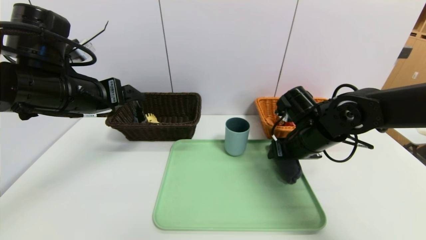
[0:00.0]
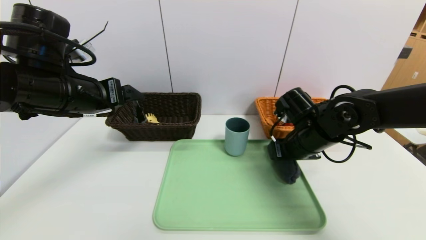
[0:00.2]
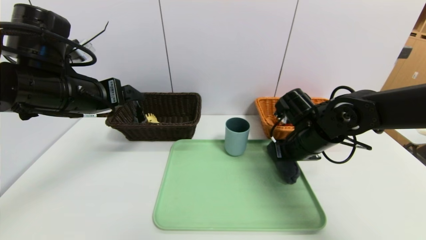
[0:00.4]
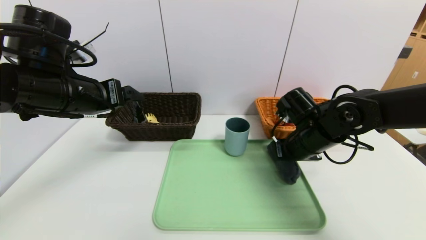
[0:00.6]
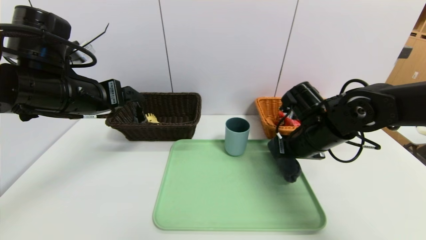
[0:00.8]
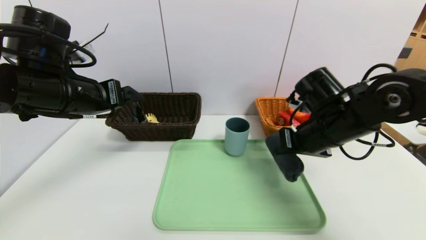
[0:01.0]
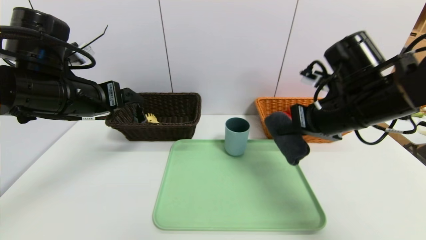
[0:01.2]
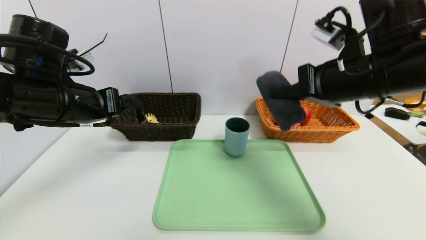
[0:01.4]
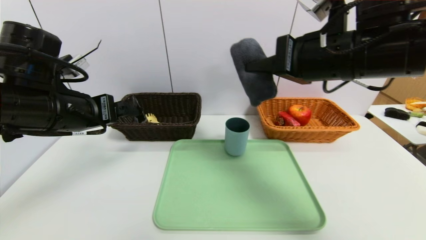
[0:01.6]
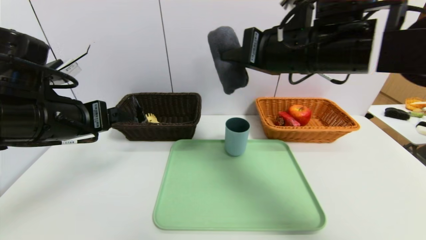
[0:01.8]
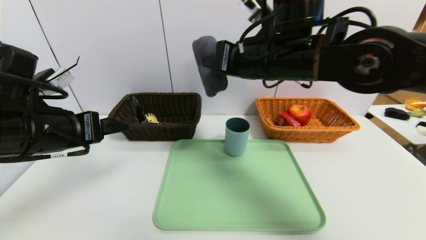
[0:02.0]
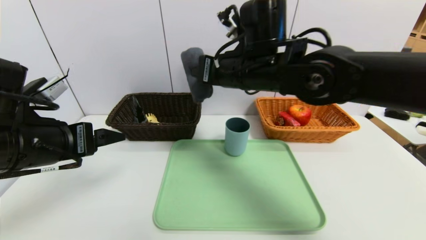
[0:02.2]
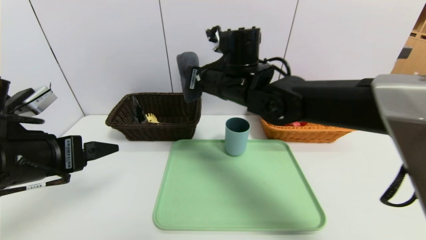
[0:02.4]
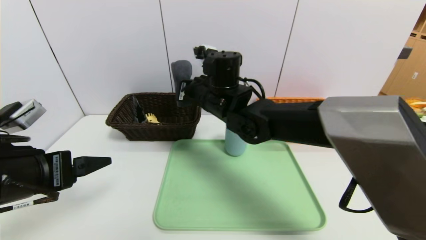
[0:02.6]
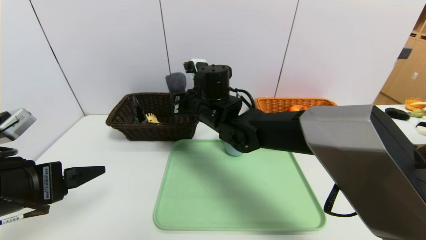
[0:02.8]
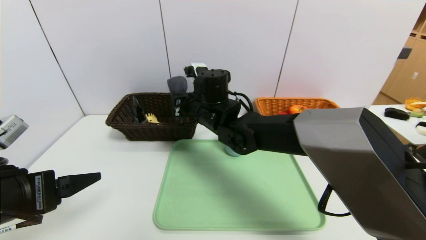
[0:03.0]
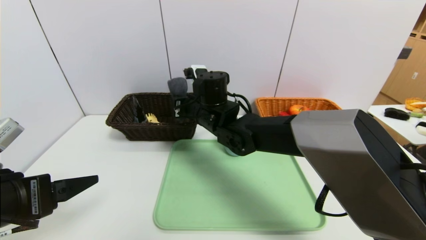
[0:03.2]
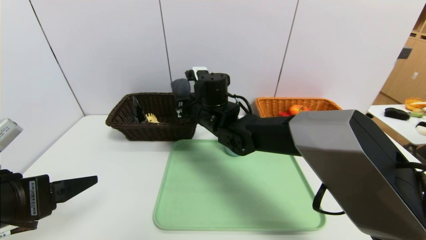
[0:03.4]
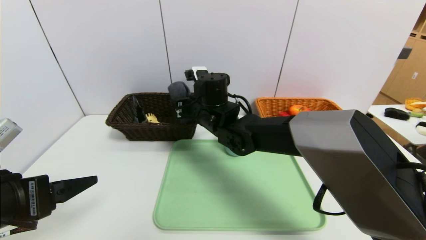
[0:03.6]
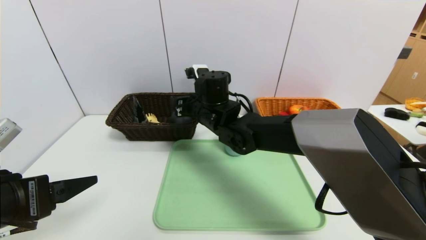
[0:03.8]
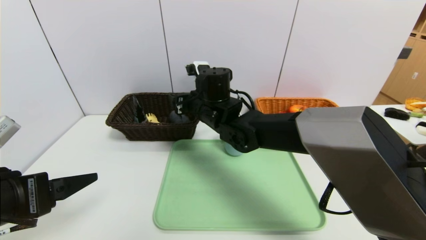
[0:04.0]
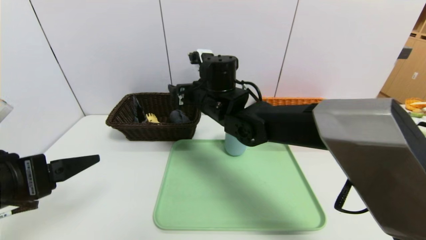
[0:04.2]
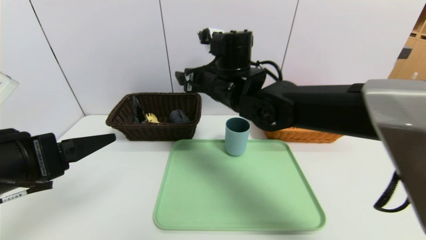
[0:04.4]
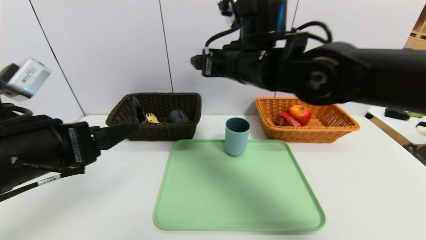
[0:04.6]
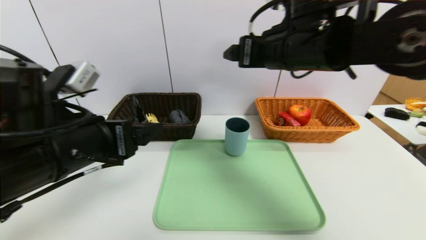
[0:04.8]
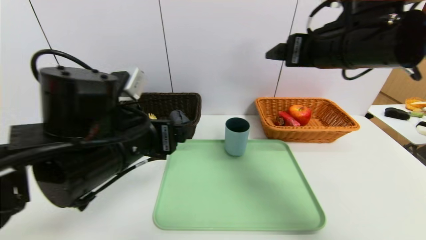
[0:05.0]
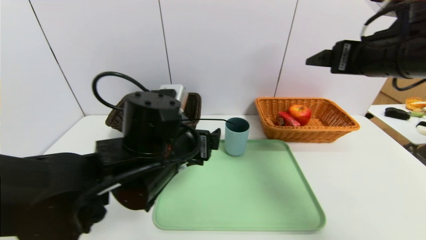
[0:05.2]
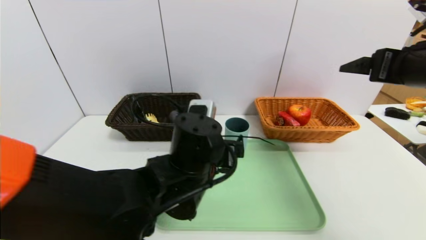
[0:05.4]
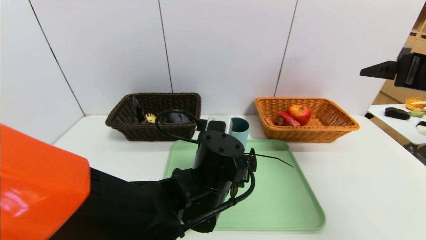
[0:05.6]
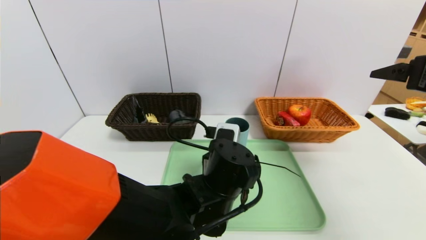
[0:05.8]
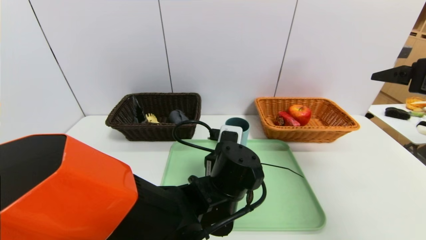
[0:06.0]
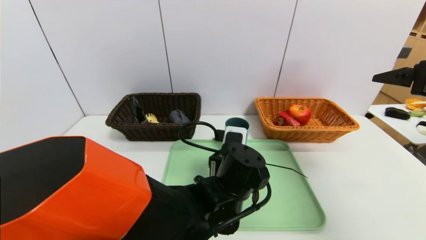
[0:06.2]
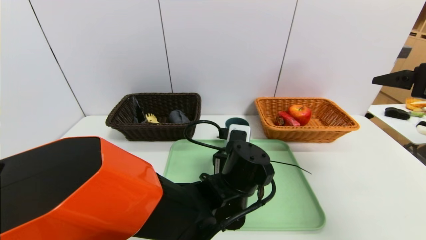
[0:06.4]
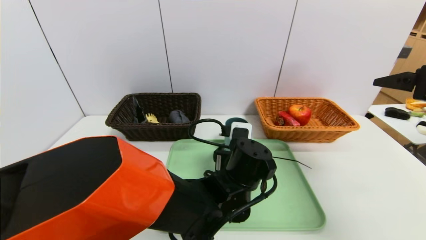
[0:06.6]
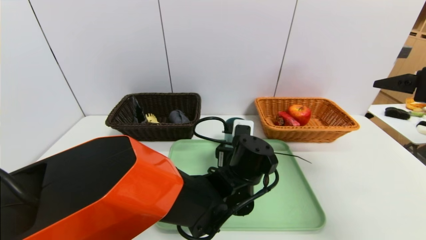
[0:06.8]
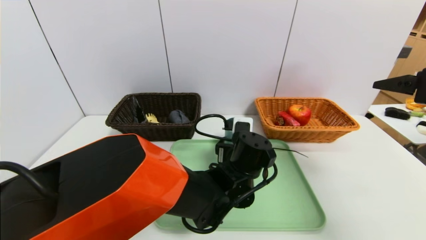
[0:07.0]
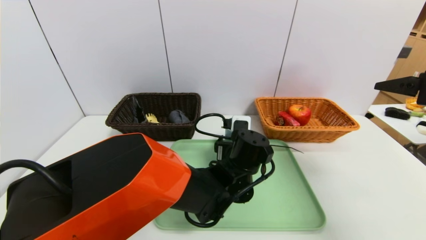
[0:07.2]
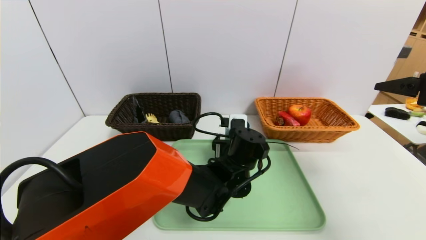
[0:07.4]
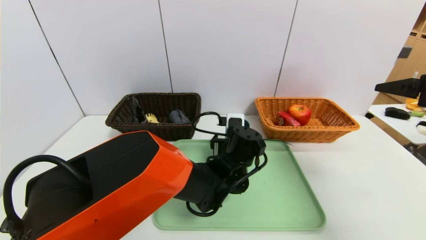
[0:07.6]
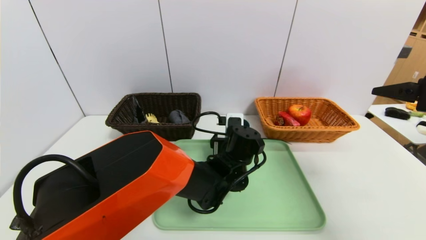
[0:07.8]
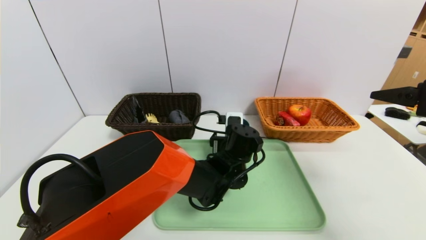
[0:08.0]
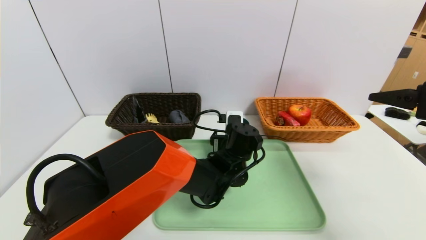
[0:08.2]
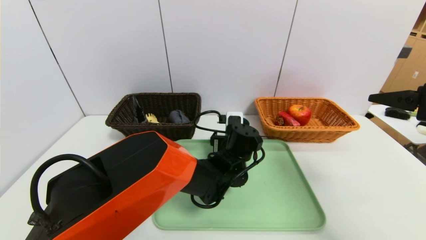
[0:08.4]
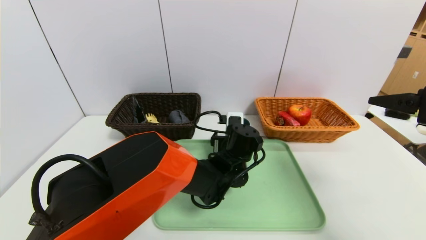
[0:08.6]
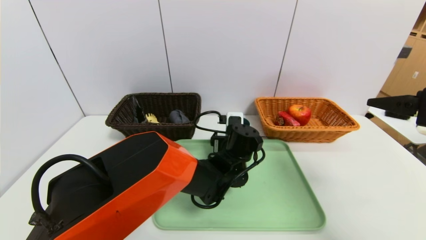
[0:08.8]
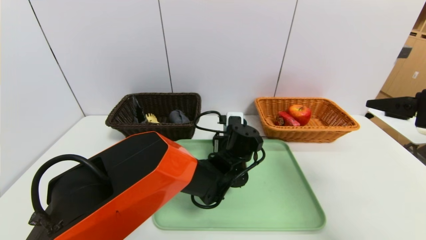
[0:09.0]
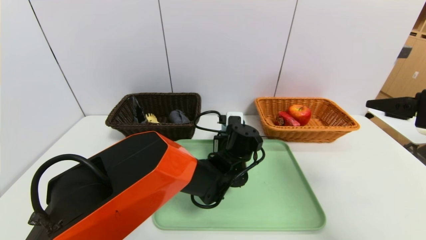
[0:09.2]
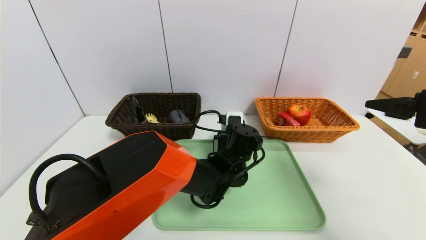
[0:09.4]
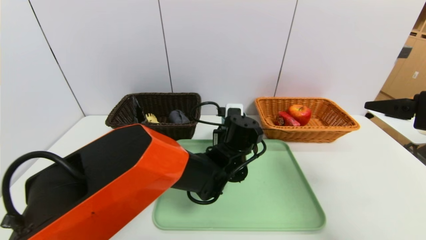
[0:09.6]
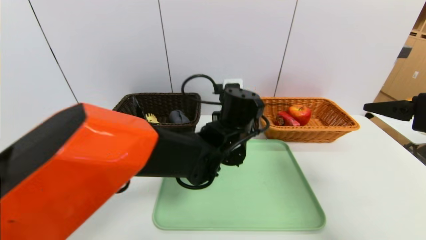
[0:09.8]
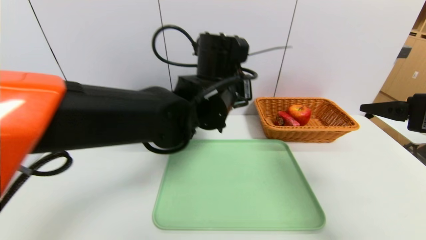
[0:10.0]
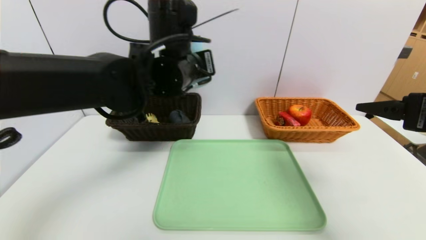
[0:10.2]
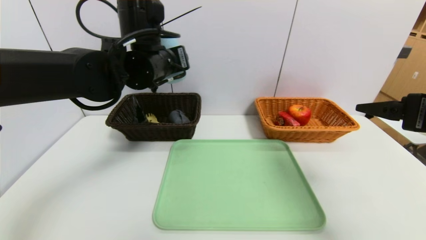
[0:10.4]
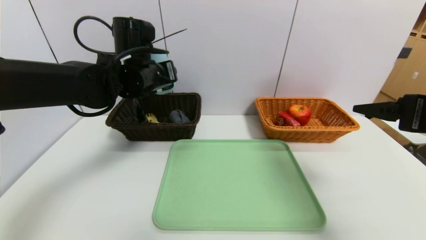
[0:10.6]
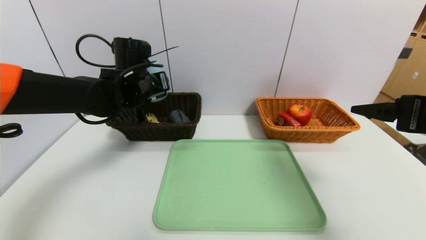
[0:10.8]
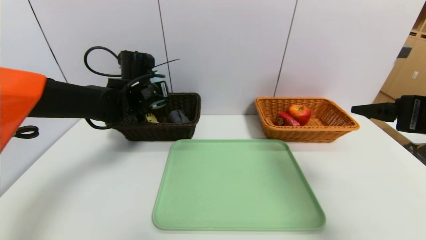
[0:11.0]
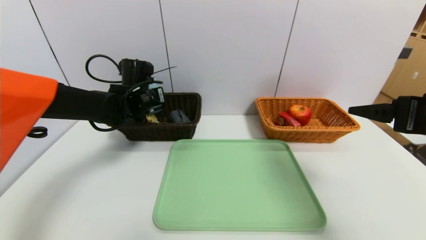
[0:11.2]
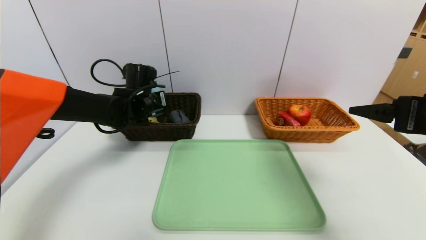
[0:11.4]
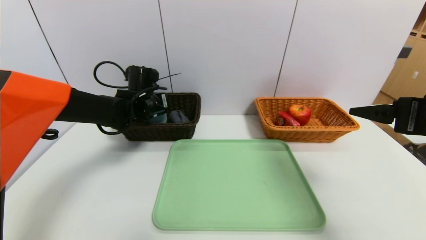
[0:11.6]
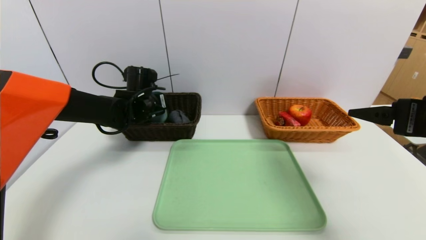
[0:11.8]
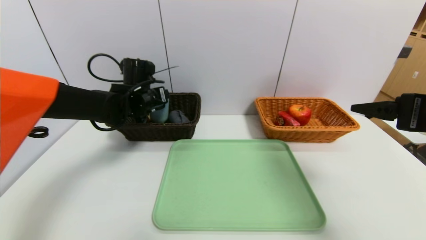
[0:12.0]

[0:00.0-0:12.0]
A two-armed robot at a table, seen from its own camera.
Task of the whole recording: place the food in the right basket with the right gripper, and place the non food items in the left basket with the left gripper.
Step, 0:00.0 to 0:04.2: Grasp the grey towel and put it in the left basket.
0:00.0 to 0:01.6: The right gripper heads upward, covering some 15 cm, and closes up.
0:01.6 to 0:03.0: The left gripper is displaced backward and downward by approximately 15 cm. The right gripper shifts roughly 25 cm to the left, downward and forward.
0:03.0 to 0:04.4: The right gripper is displaced upward by approximately 5 cm, and opens up.
0:04.4 to 0:06.0: The right gripper shifts approximately 35 cm to the right and backward. The left gripper heads to the right and downward, covering some 30 cm.
0:06.0 to 0:07.6: The left gripper heads forward, covering approximately 10 cm.
0:07.6 to 0:09.0: There are only small adjustments of the grippers.
0:09.0 to 0:10.4: The left gripper moves upward and to the left, about 25 cm.
0:10.4 to 0:12.0: The left gripper moves downward, forward and to the left, some 15 cm.

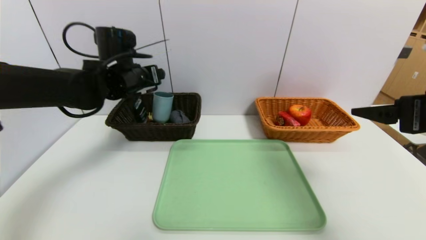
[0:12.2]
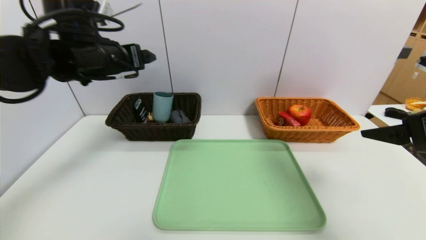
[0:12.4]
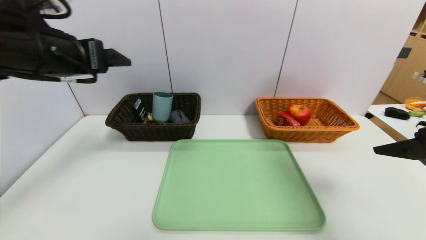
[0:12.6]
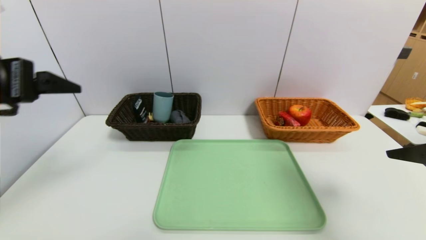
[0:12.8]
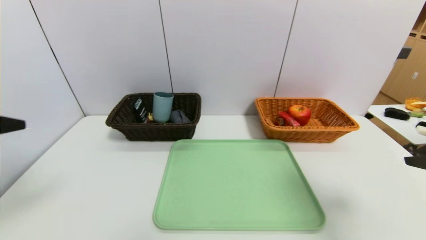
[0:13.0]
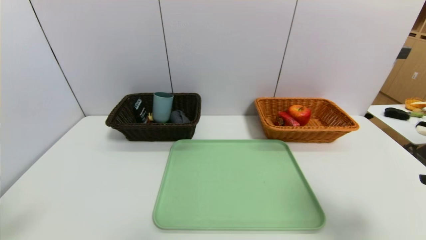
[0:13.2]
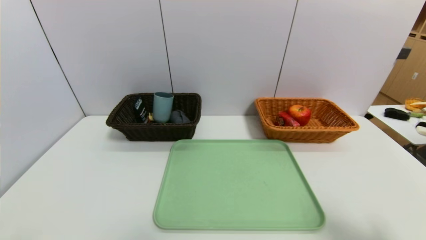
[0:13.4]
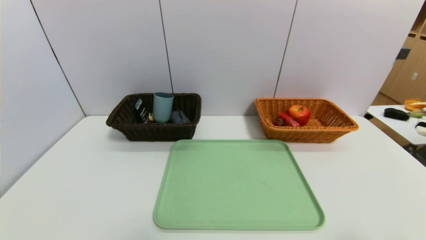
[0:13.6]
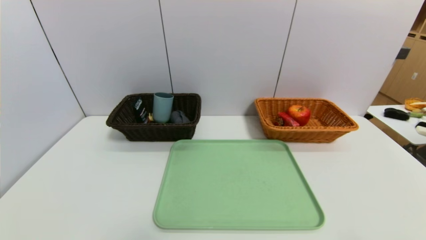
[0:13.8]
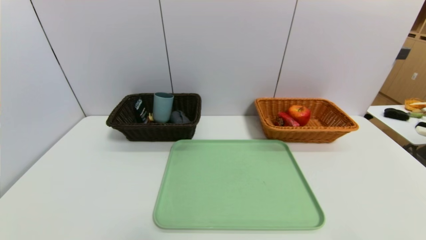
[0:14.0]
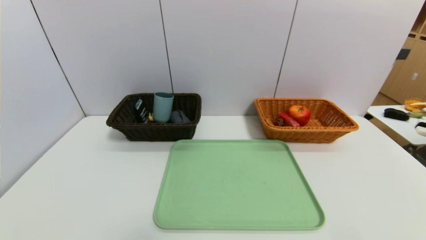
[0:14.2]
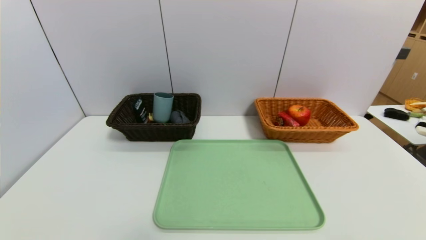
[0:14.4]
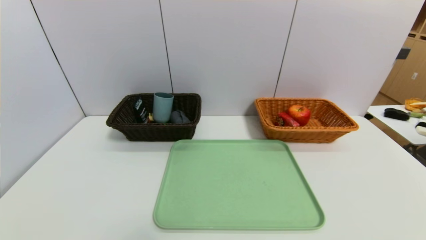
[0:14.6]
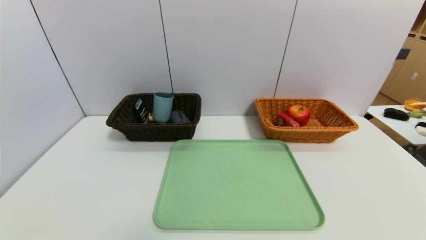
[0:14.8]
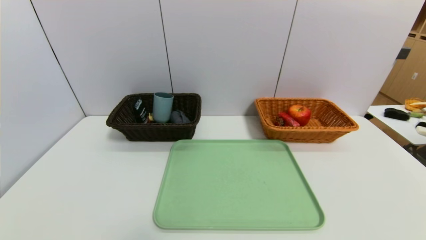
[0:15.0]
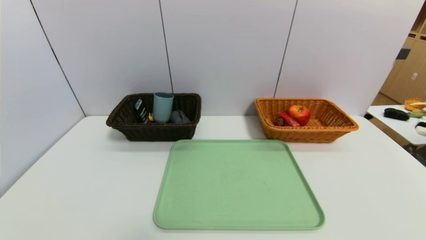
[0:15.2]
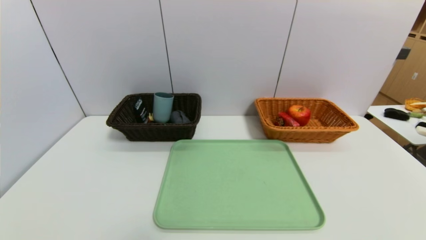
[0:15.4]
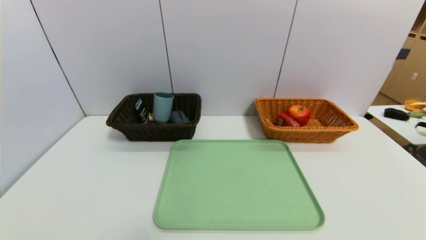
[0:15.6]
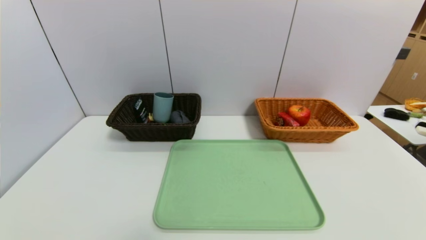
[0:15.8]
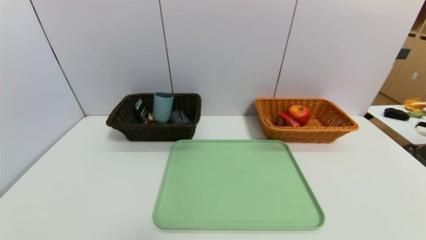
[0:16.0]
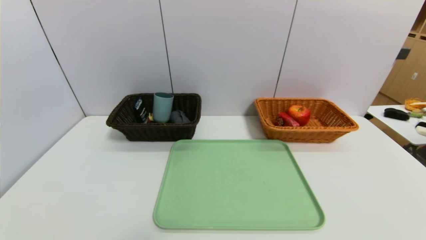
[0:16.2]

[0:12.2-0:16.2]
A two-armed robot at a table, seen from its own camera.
Task of the whole recording: place the food in the right basket with the right gripper, and place the non food items in the left basket with the left gripper.
0:12.2 to 0:13.6: The right gripper travels backward and downward by approximately 20 cm. Meanwhile the left gripper heads backward, covering approximately 40 cm.
